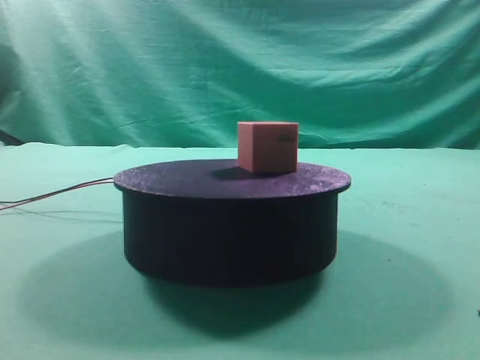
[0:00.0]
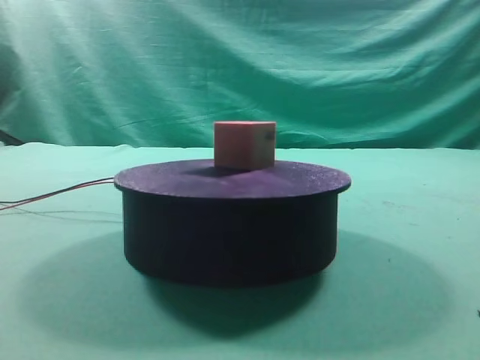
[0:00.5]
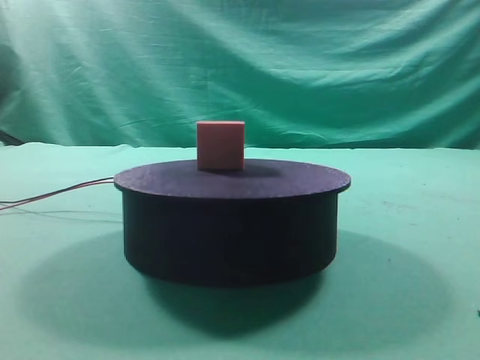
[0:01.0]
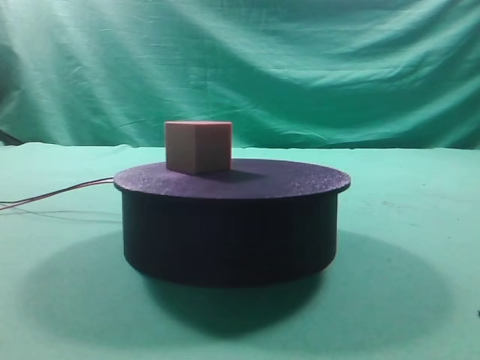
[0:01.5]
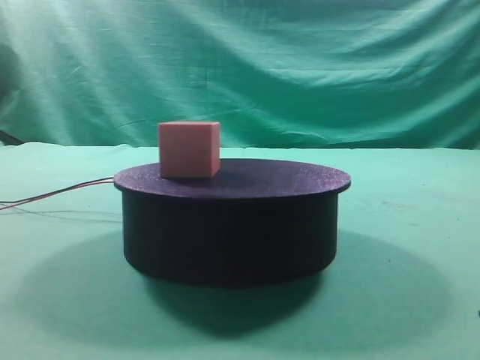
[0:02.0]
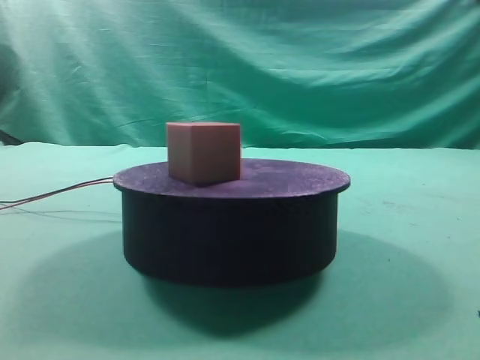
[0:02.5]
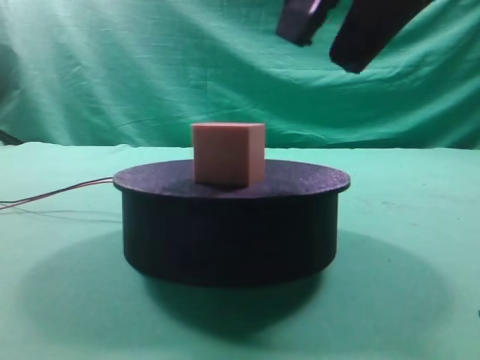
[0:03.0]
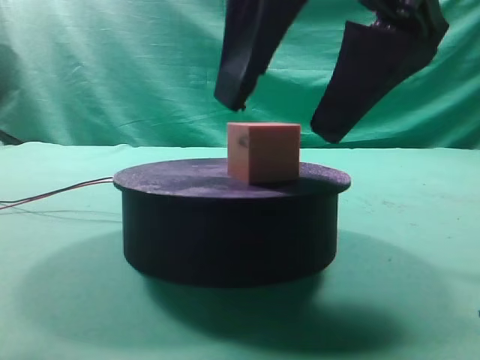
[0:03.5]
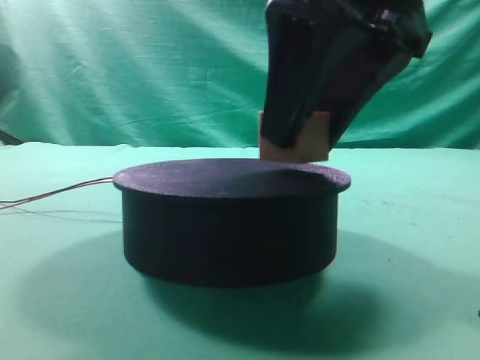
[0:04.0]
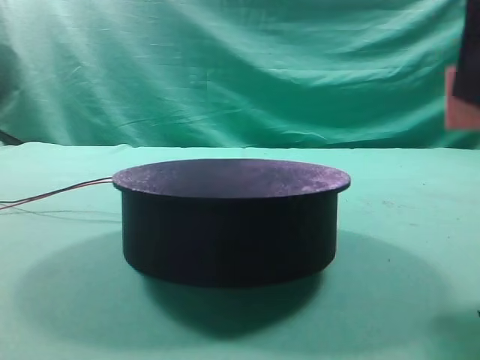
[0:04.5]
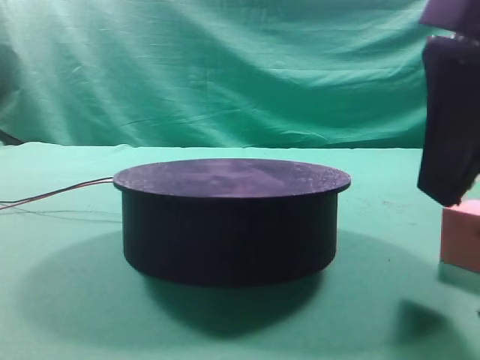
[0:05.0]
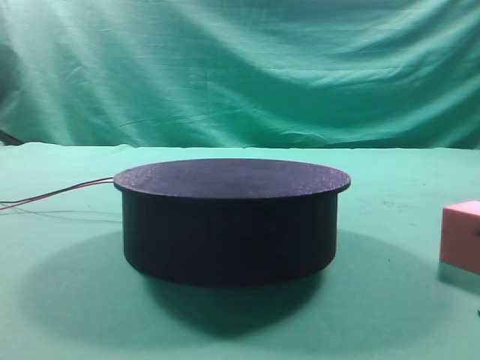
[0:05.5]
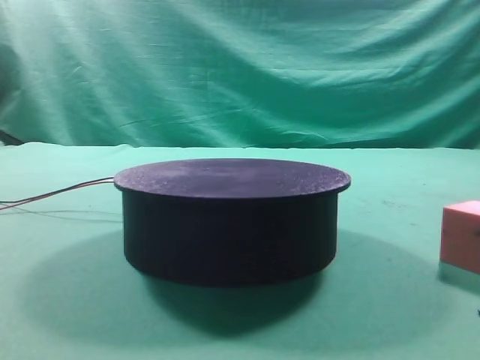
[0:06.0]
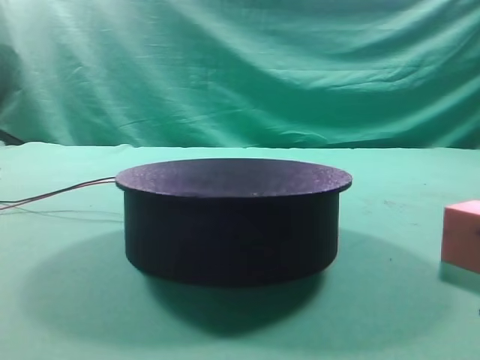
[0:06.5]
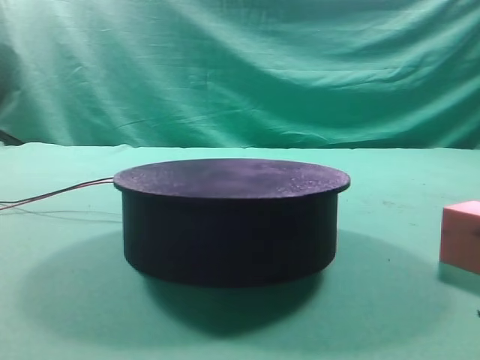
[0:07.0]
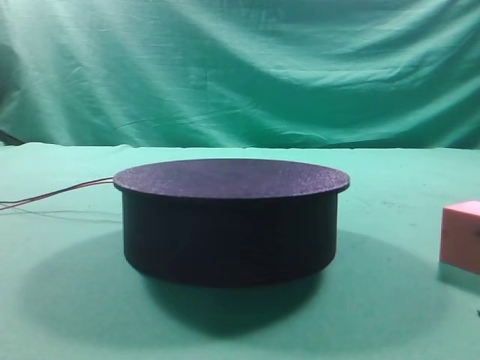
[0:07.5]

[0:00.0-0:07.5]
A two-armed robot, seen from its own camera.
Task of the whole recording: grasp the rotating cube-shaped block on the turntable and place it on the table.
Step, 0:00.0 to 0:04.0: Grasp the rotating cube-shaped block on the turntable.
Step, 0:04.5 to 0:05.0: Place the cube on the desk.
